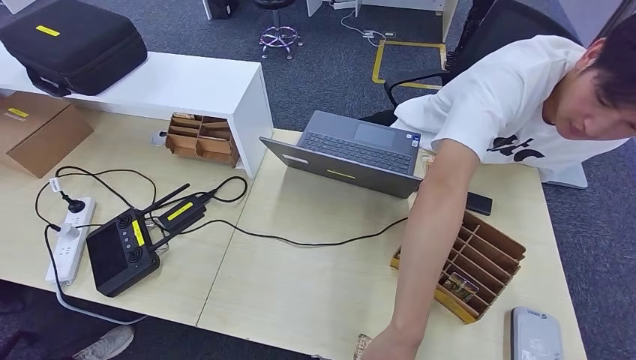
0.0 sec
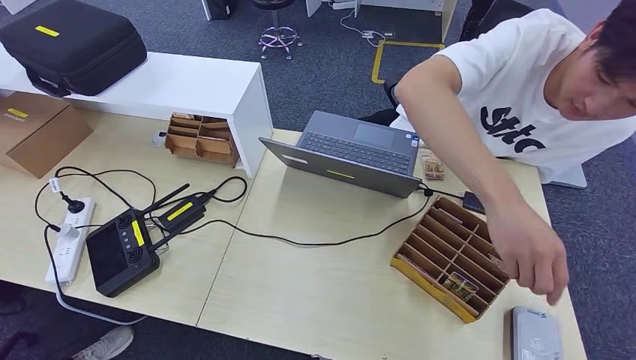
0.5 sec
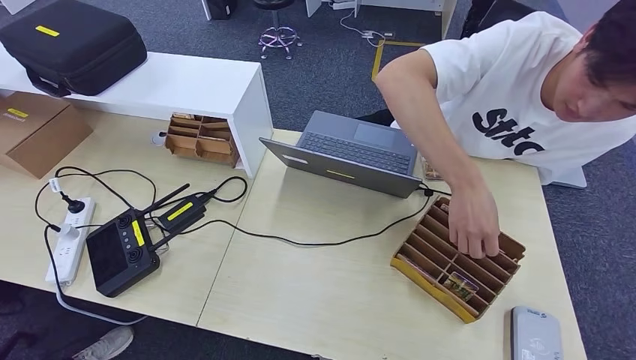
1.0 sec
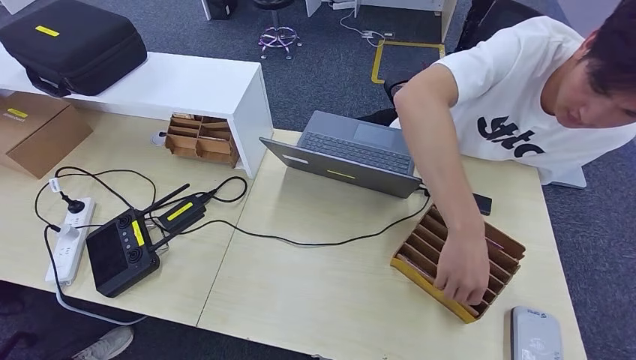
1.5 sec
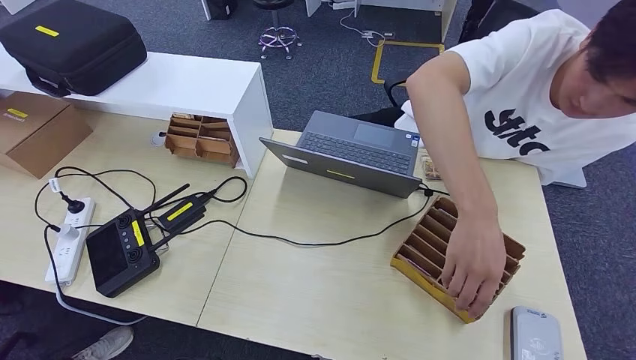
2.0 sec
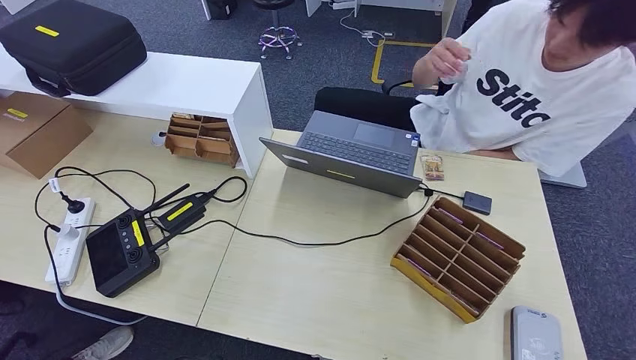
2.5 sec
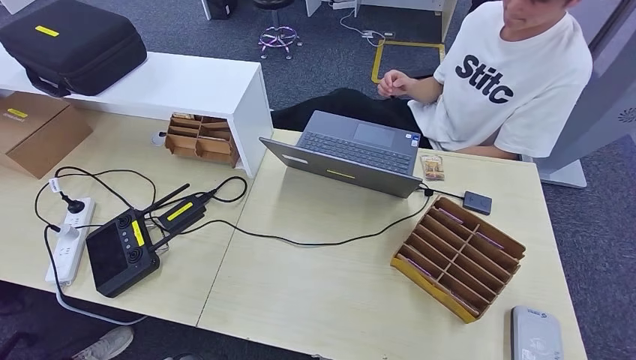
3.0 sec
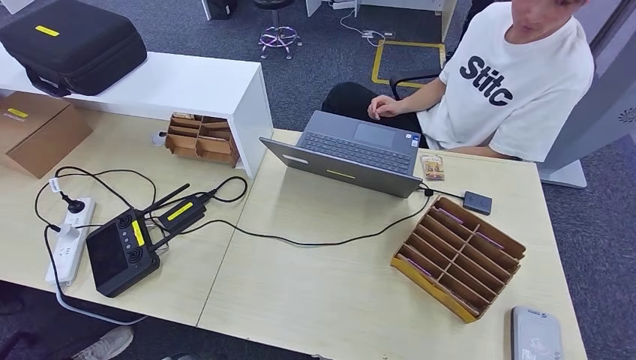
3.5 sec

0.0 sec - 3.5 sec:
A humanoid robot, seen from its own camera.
Step, 0.0 sec - 3.5 sec: Hand the room key to the person.
0.0 sec - 2.0 sec: The right hand goes about 15 cm to the left and downward.
2.0 sec - 3.5 sec: There are only small adjustments of the hands.
